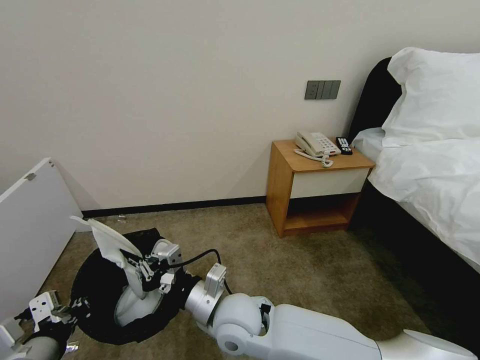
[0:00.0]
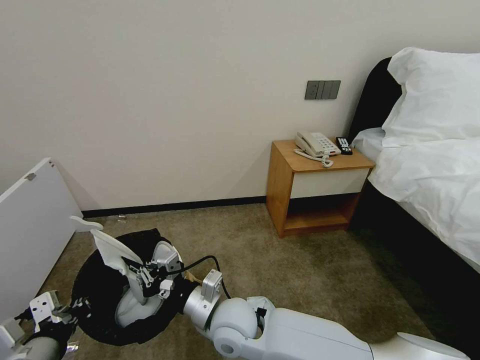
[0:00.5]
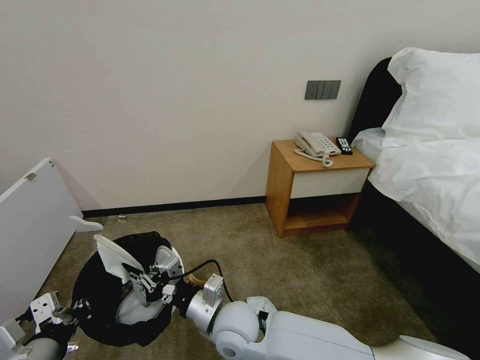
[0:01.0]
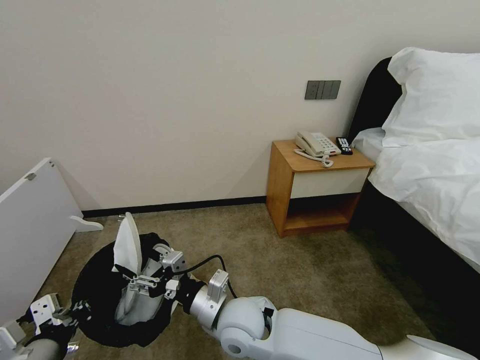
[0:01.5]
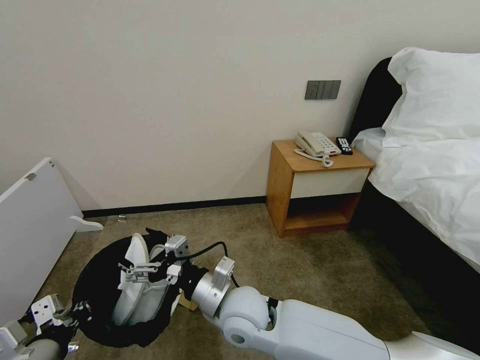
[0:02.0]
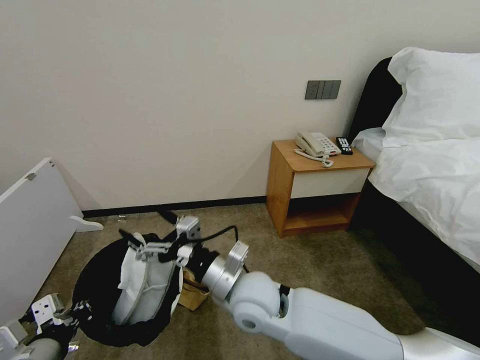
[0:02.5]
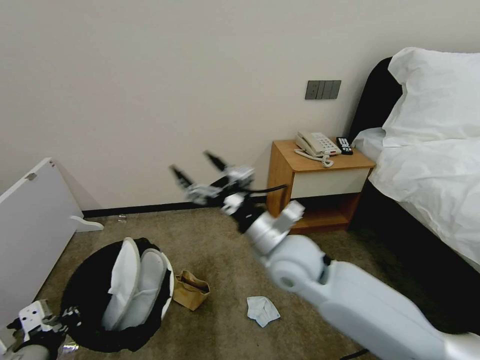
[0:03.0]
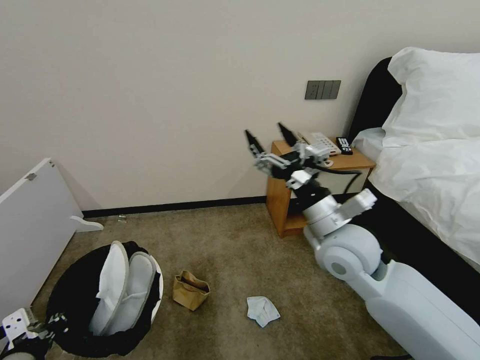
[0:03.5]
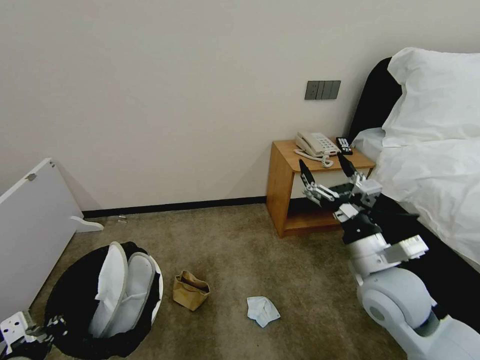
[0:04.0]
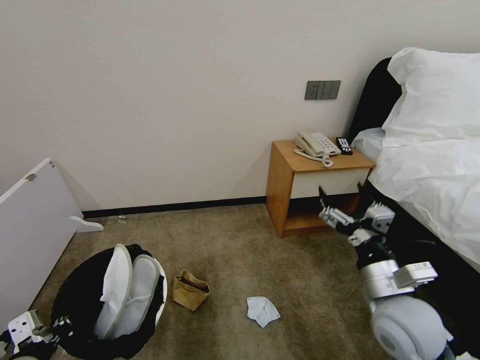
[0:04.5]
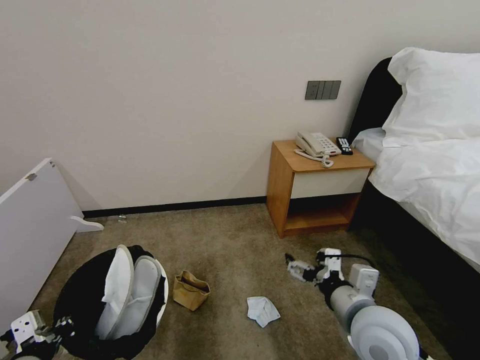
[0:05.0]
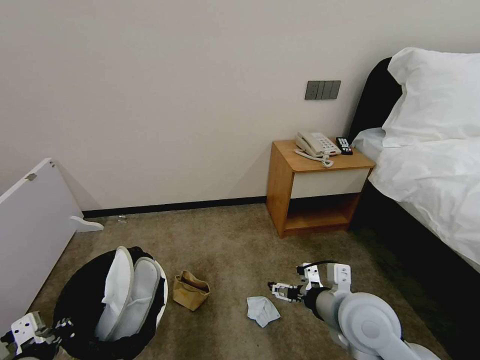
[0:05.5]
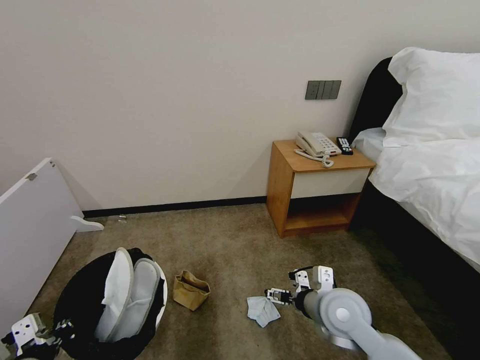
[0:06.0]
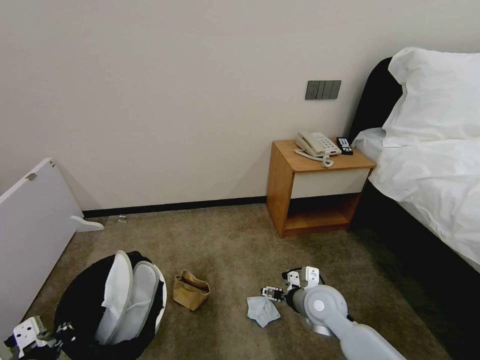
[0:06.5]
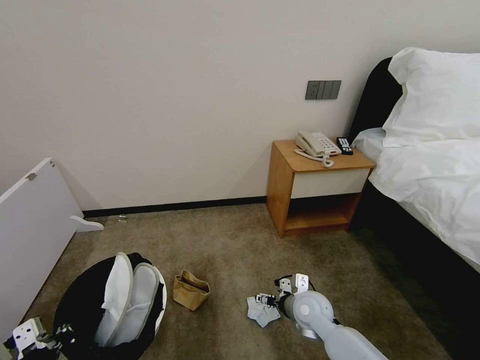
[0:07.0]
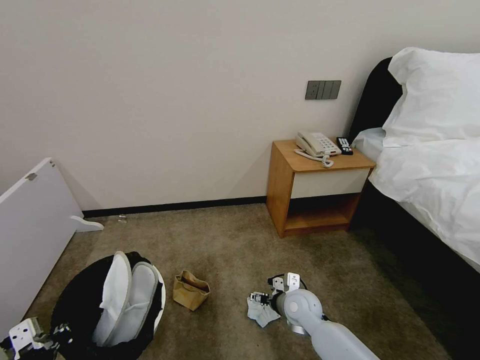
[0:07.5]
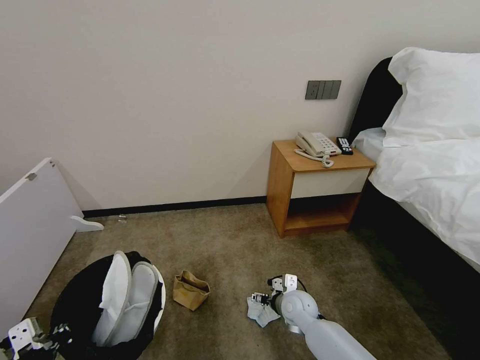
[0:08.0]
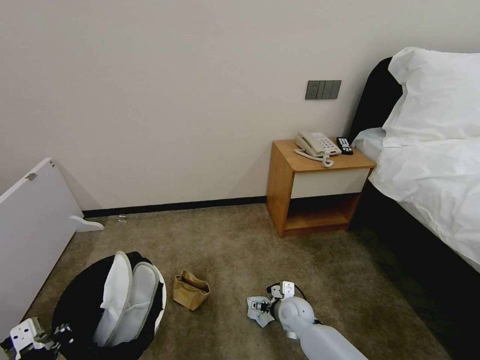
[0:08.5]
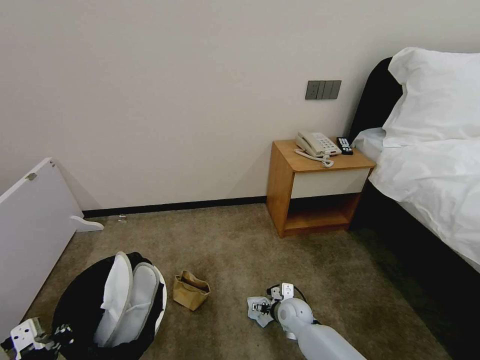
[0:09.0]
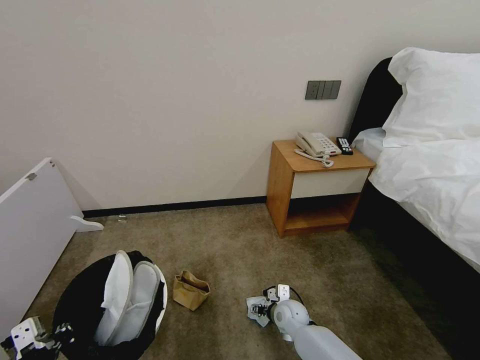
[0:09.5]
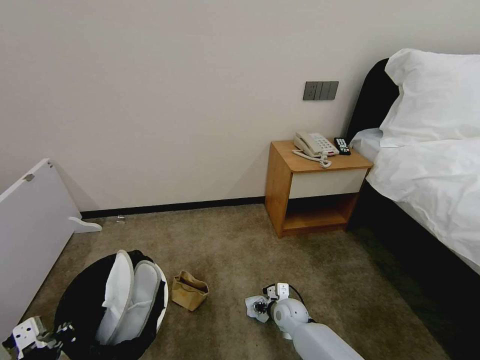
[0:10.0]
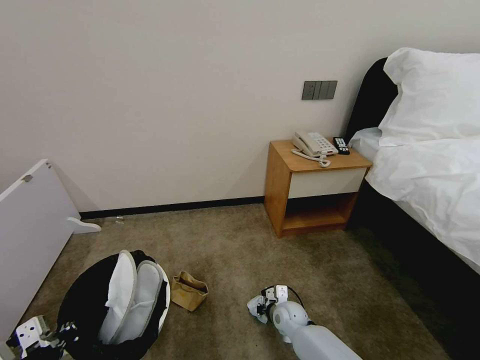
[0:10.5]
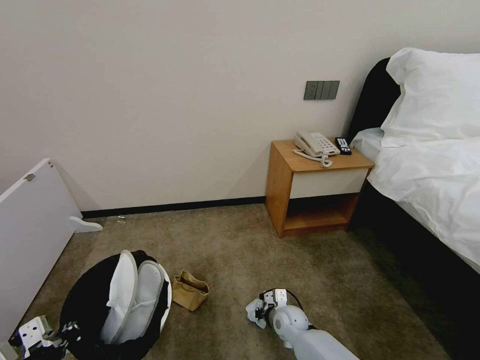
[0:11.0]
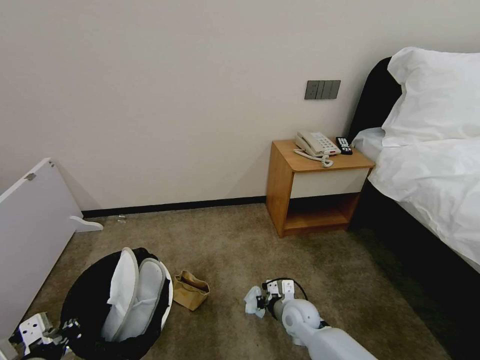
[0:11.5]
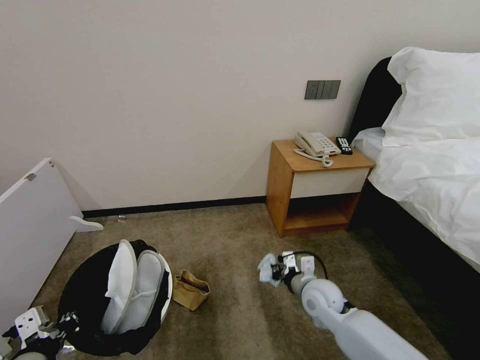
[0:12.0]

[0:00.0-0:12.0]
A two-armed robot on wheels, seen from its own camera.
Task of the whole recording: Pick up the trash bin, then pick up the garbage from the floor and place it into the trash bin.
0:00.0 to 0:02.0: The right gripper opens up.
0:02.0 to 0:04.0: The right gripper goes approximately 25 cm to the right.
0:04.0 to 0:06.0: The right gripper heads downward, covering about 10 cm.
0:06.0 to 0:08.0: The right gripper travels downward and forward by some 15 cm.
0:08.0 to 0:10.0: The right gripper is displaced downward by roughly 5 cm, and closes.
0:10.0 to 0:12.0: The right gripper heads upward, covering roughly 15 cm, and closes up.

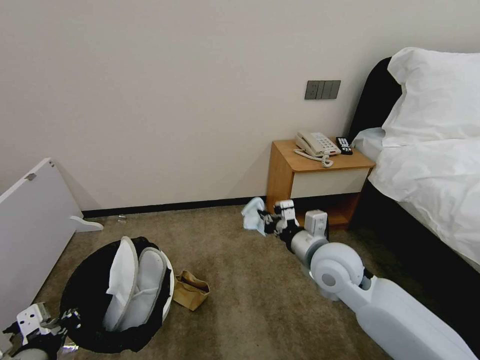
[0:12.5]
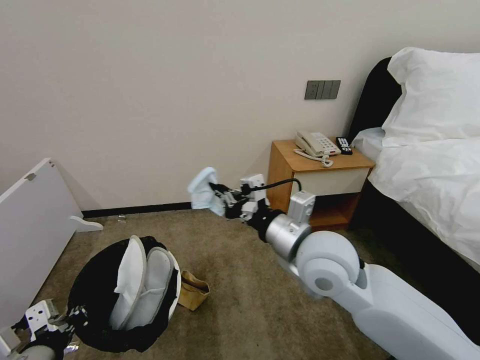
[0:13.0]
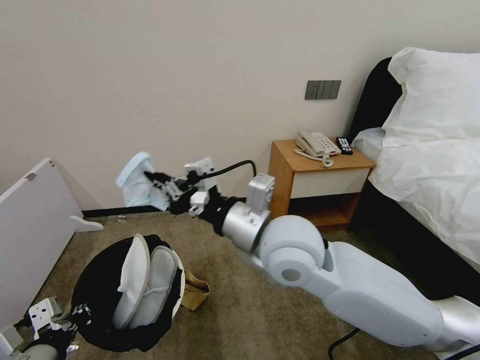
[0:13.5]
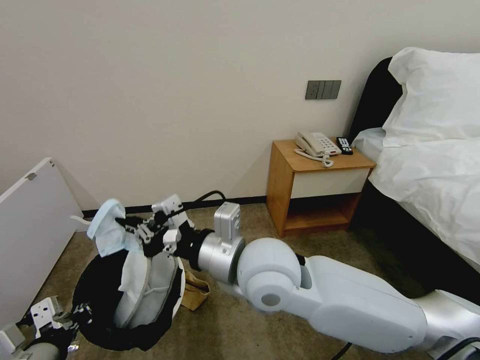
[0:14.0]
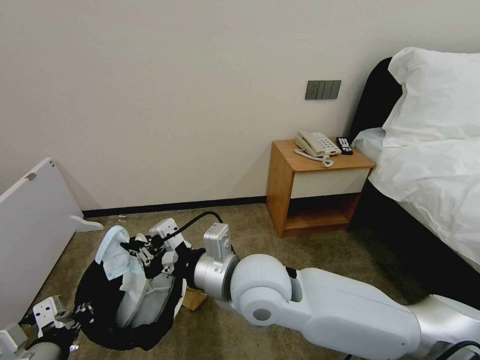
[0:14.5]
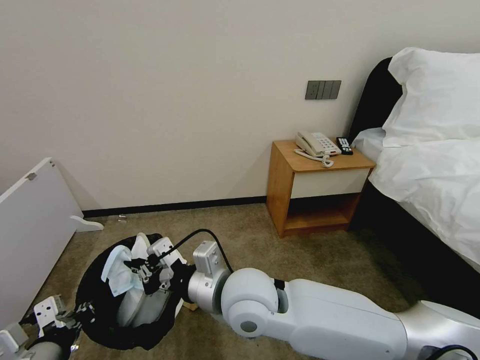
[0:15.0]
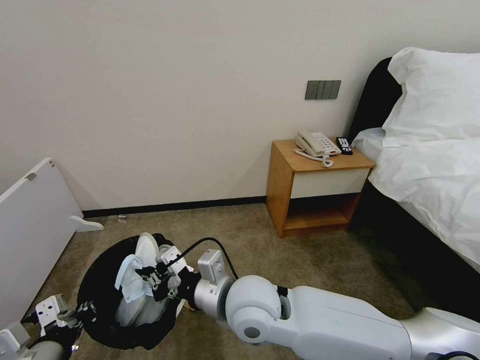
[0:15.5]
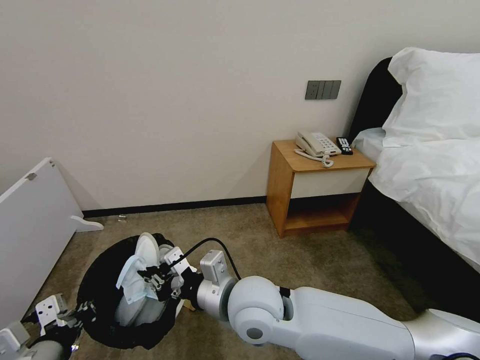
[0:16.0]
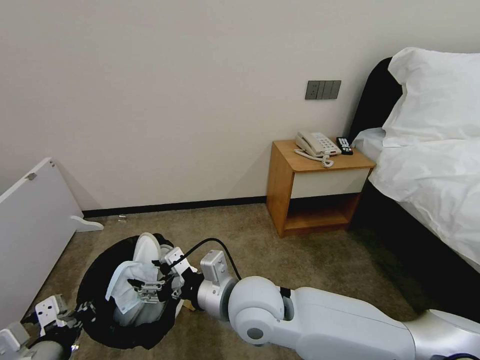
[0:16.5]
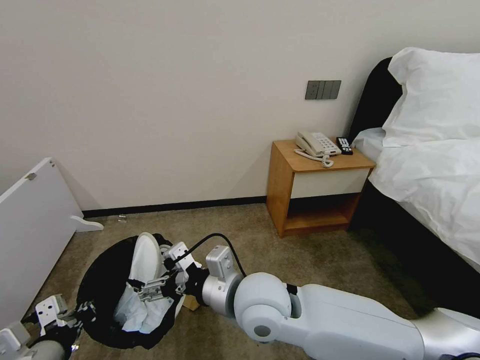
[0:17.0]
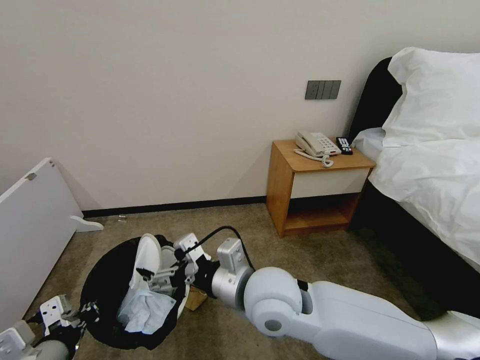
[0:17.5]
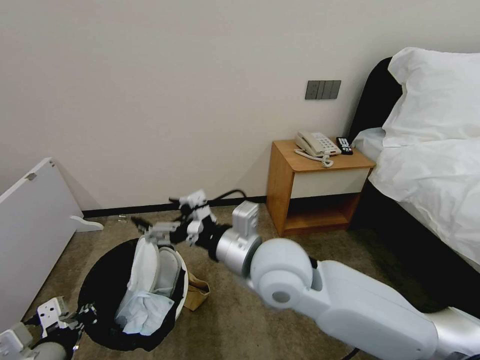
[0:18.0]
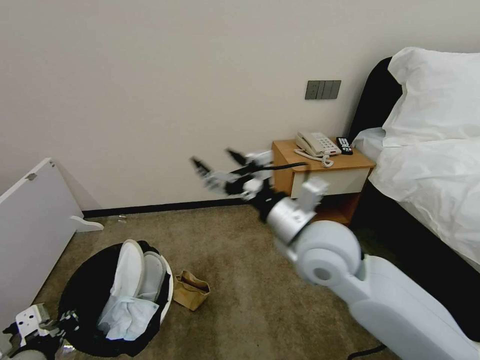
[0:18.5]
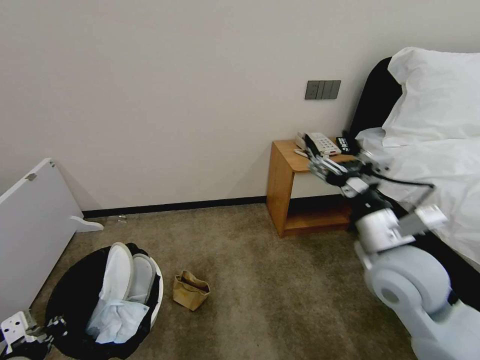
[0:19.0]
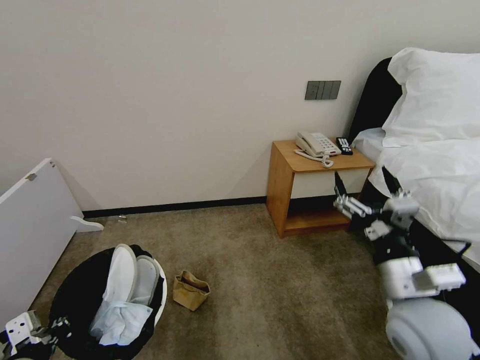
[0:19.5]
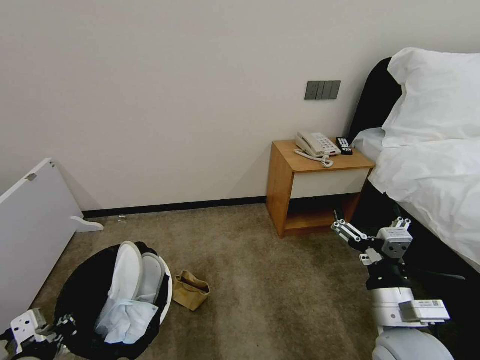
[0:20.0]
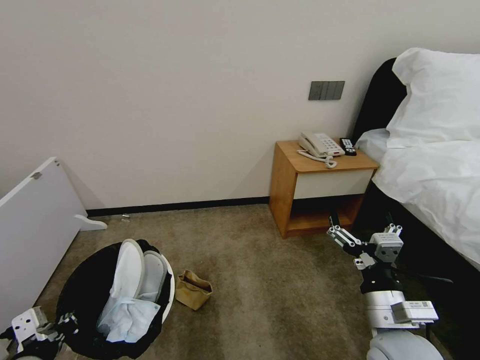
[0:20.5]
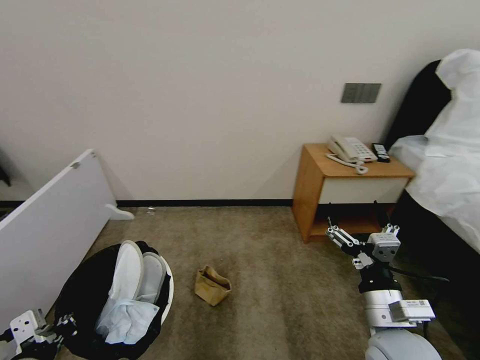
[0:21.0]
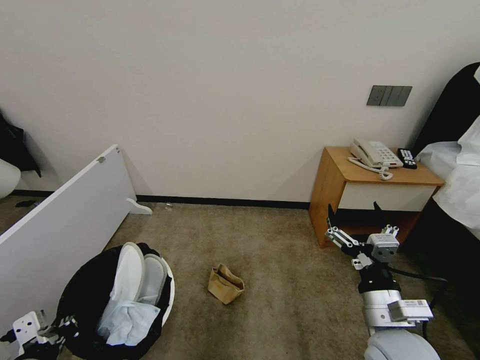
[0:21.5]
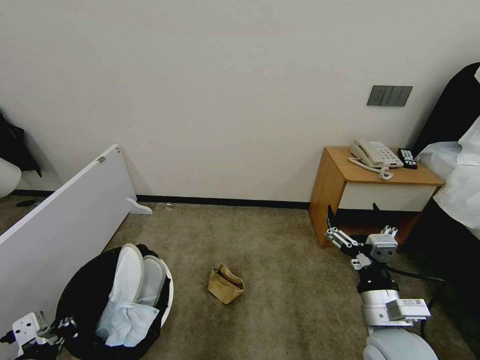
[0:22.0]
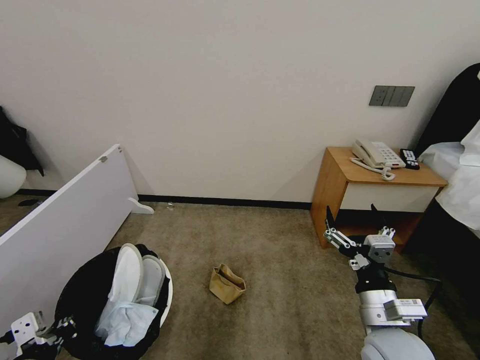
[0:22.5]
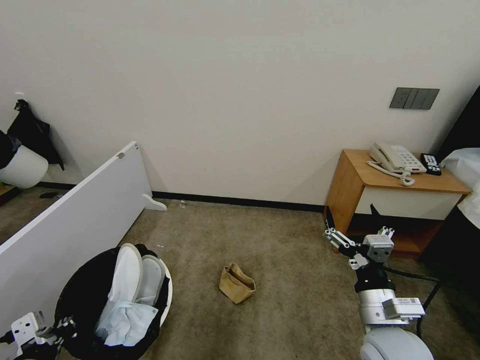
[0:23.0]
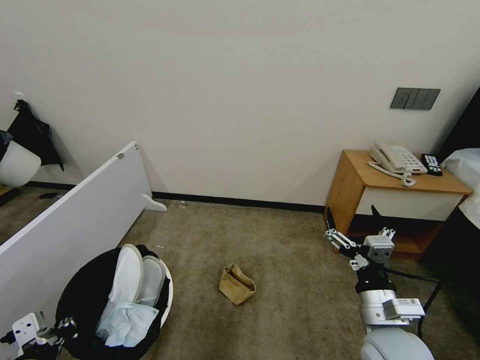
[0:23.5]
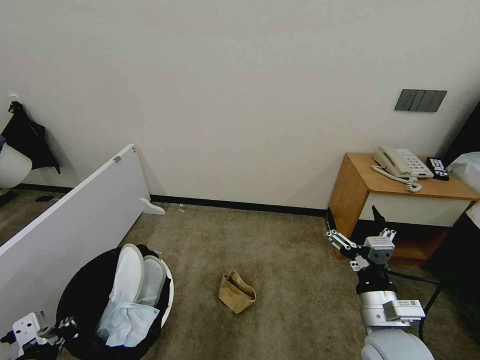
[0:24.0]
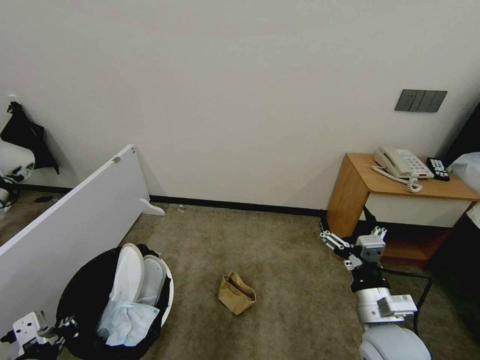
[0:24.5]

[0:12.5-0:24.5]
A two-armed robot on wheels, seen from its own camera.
Task of the whole recording: Pick up the trash bin, then pick up the garbage from the floor and place it into the trash bin.
0:12.5 to 0:14.5: The right gripper travels to the left and backward by about 20 cm.
0:14.5 to 0:16.5: The right gripper is displaced downward by about 5 cm, and opens its fingers.
0:16.5 to 0:18.5: The right gripper heads to the right and upward, covering about 15 cm.
0:18.5 to 0:20.5: The right gripper moves downward, backward and to the right, approximately 20 cm.
0:22.5 to 0:24.5: The grippers make only small movements.

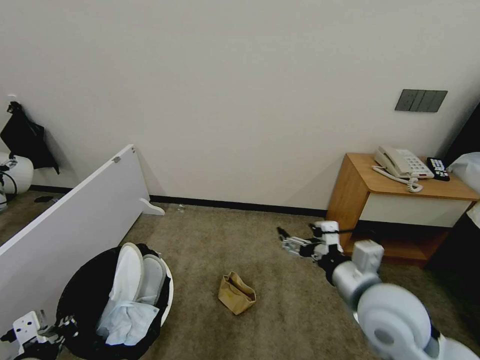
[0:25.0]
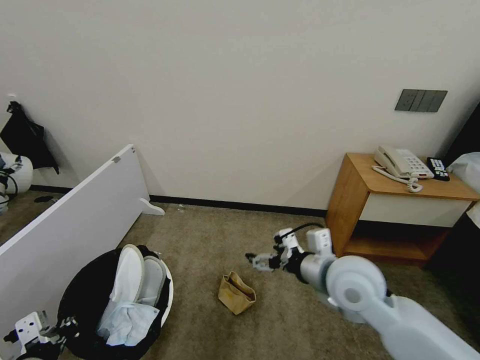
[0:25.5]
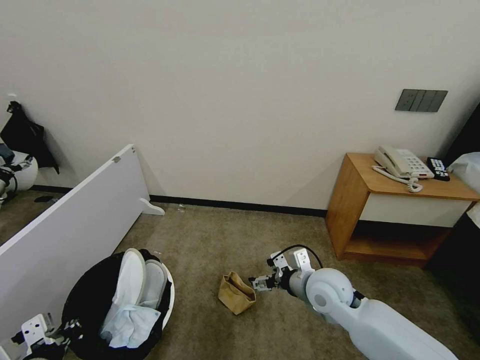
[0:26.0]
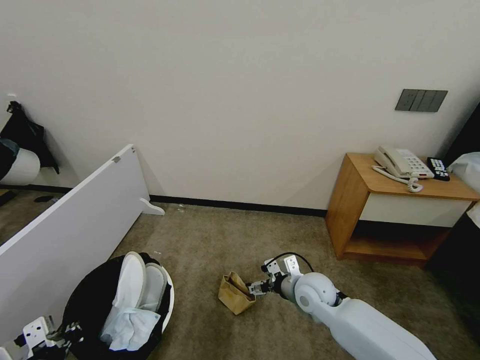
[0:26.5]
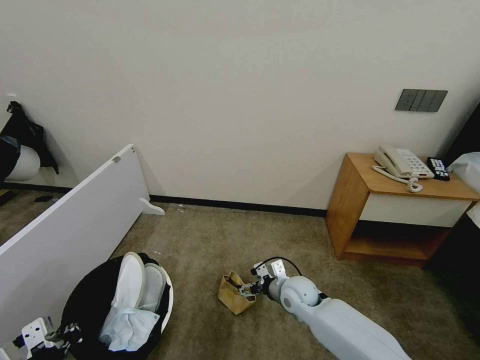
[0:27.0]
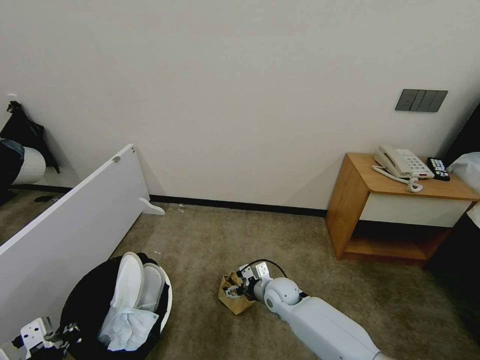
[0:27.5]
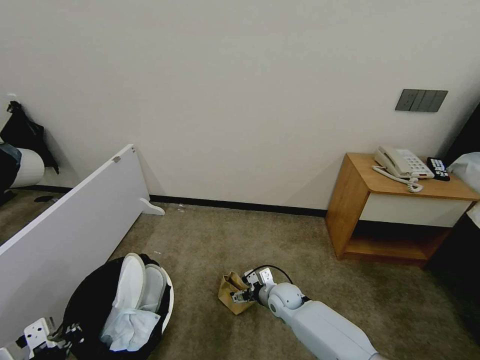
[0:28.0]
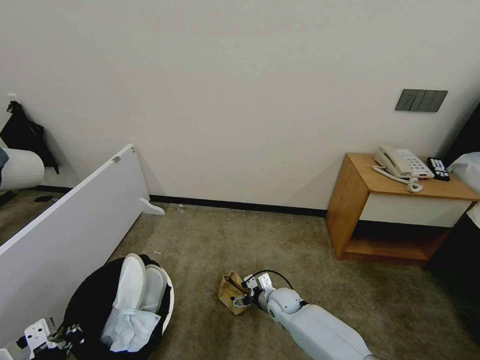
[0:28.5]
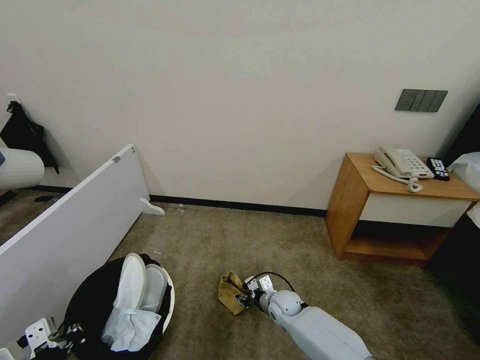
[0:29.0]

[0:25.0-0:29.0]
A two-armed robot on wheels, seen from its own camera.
Task of the whole recording: Pick up the trash bin, then pick up the garbage from the floor and place it into the trash bin.
0:25.0 to 0:27.0: The right gripper shifts roughly 25 cm downward and forward.
0:27.0 to 0:29.0: The right gripper heads downward, covering some 10 cm, and closes up.
